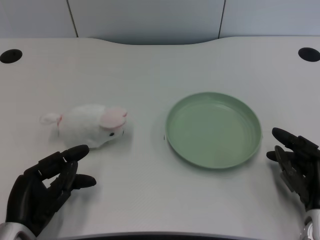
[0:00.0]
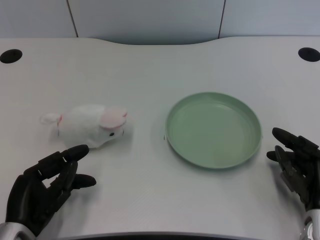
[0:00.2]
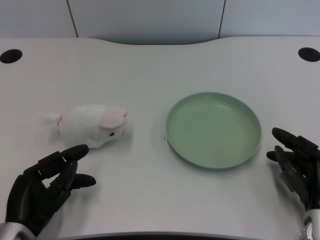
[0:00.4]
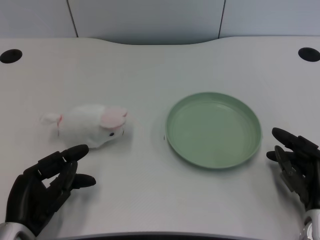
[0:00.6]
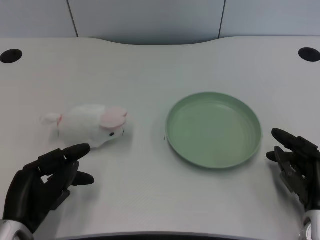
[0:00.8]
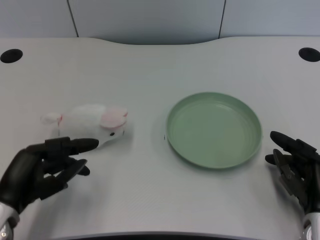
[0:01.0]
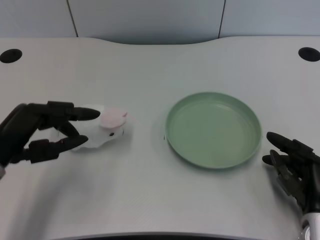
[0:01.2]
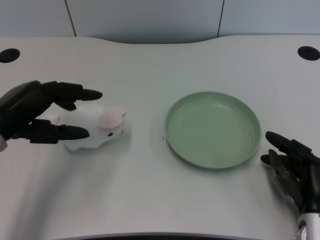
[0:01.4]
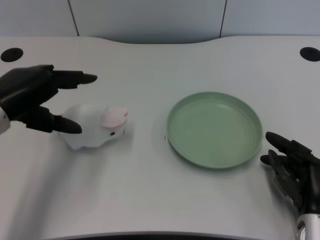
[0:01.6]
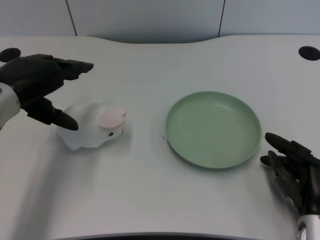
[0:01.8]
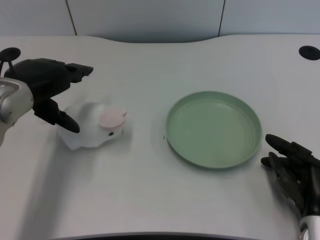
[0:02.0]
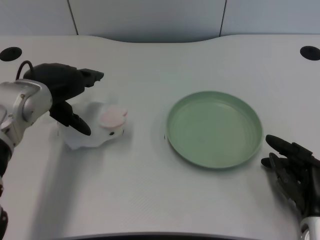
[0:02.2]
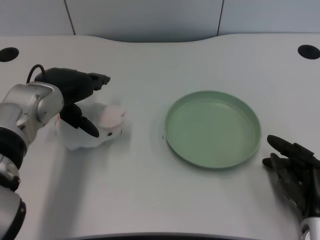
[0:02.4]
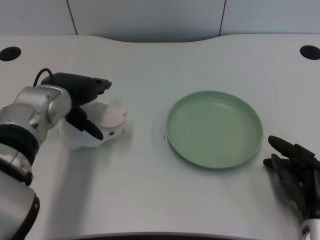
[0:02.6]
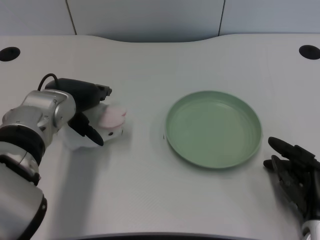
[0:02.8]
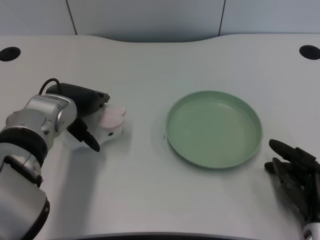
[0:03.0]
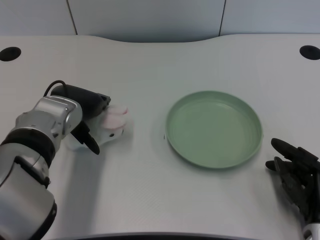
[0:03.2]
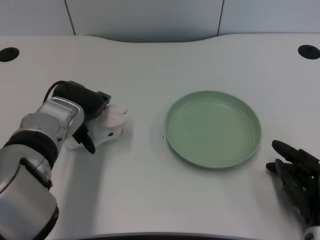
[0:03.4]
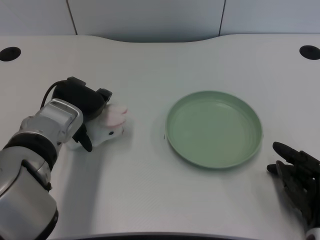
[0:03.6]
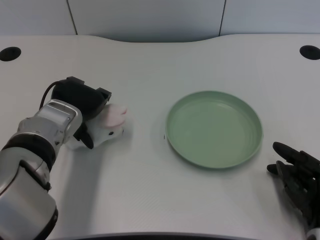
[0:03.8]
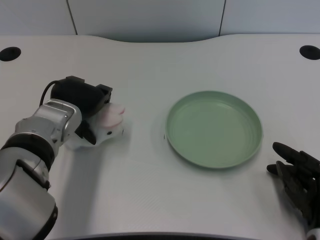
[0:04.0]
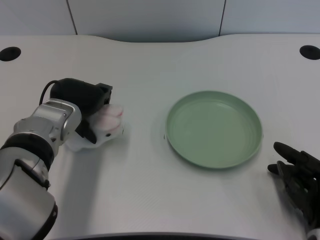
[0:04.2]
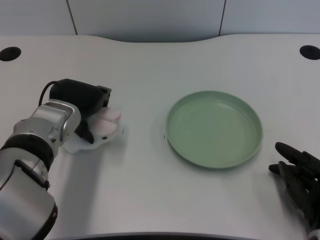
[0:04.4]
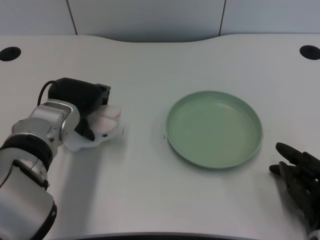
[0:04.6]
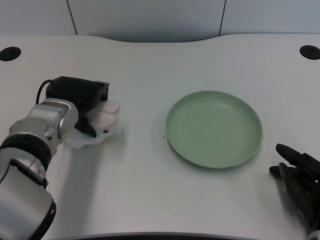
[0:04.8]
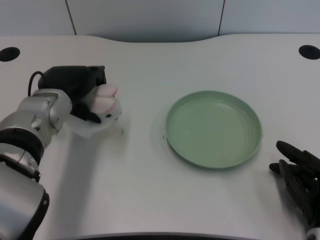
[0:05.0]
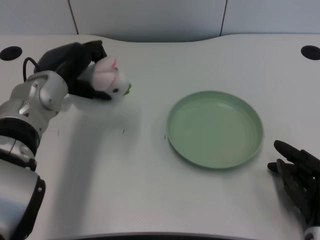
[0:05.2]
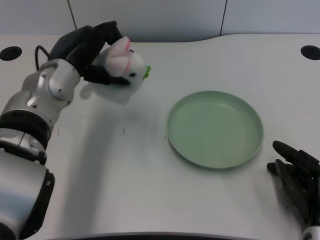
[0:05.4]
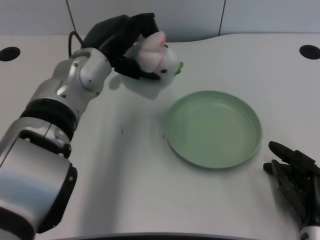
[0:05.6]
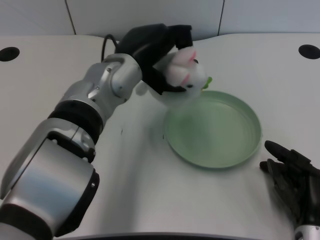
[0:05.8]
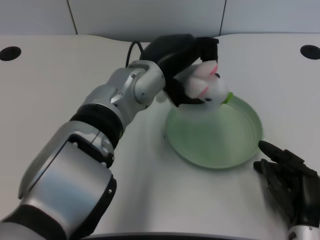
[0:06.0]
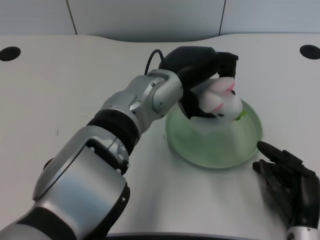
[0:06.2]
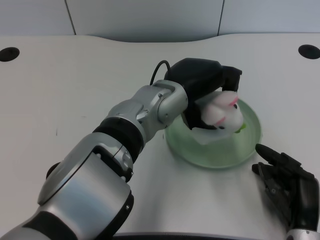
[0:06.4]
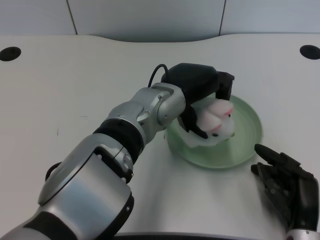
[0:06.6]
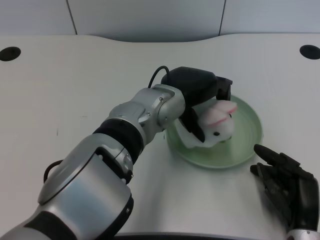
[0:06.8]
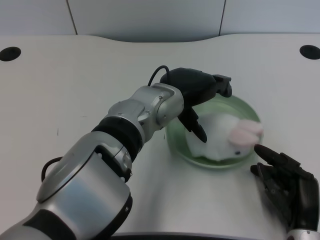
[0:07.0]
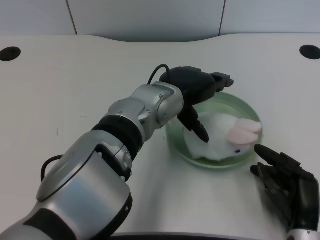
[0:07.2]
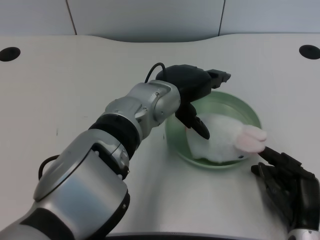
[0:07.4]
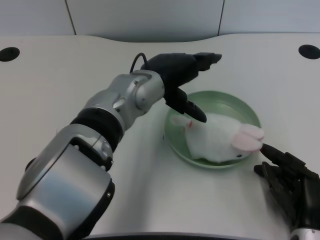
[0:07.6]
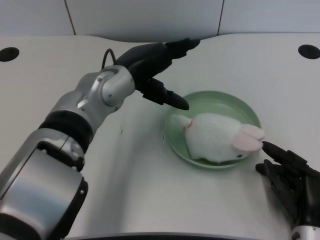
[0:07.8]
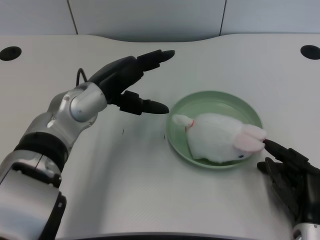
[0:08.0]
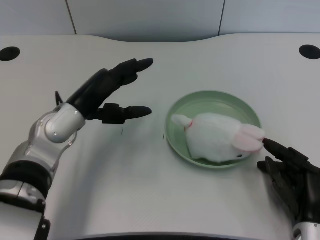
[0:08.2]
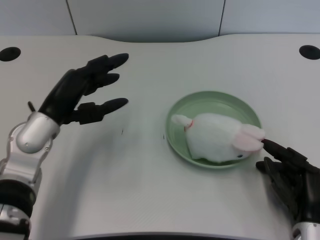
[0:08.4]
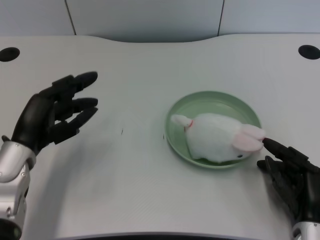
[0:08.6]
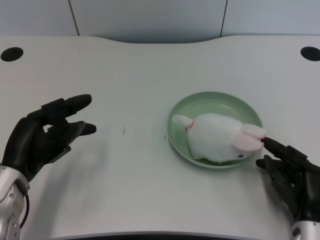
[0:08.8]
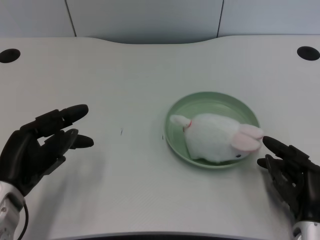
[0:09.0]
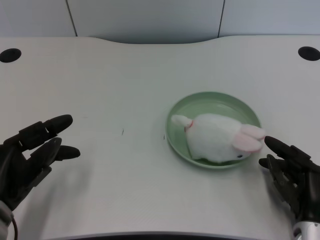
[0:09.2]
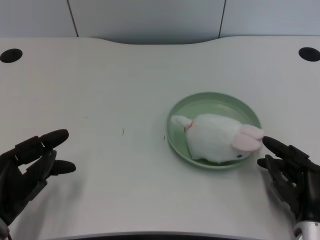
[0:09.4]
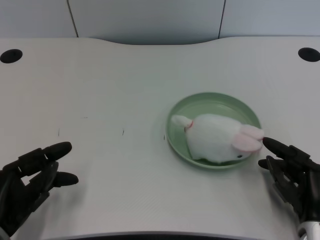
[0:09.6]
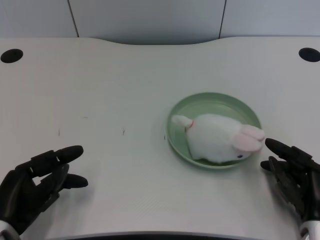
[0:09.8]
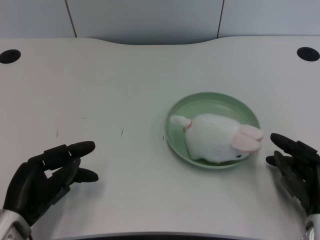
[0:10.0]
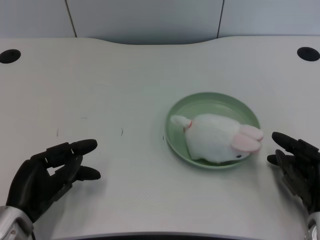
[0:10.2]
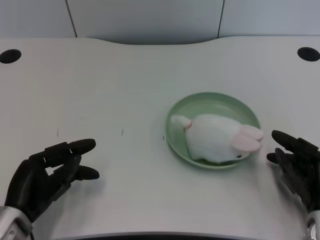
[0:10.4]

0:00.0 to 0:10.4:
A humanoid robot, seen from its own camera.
Task of the whole recording: pick up the rabbit doll from the table and place it on the plate.
Step, 0:01.0 to 0:04.8: Grasp the rabbit doll with the left gripper.
Step, 0:05.0 to 0:07.2: Place the rabbit doll into the plate with the left gripper.
0:01.4 to 0:03.0: The left hand is displaced to the right and forward by roughly 10 cm.
0:03.0 to 0:04.4: The hands move only a little.
0:04.4 to 0:06.0: The left hand shifts about 15 cm to the right and upward.
0:07.4 to 0:09.0: The left hand moves to the left and backward, some 25 cm.
0:09.0 to 0:10.4: There are only small adjustments of the hands.

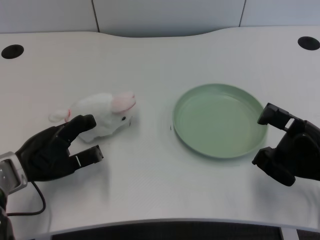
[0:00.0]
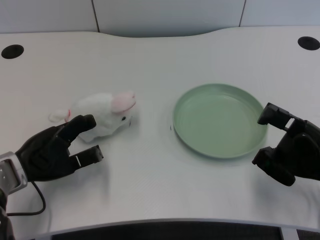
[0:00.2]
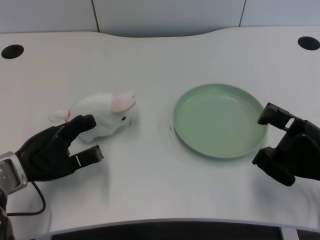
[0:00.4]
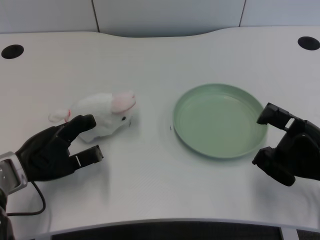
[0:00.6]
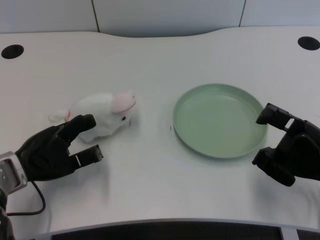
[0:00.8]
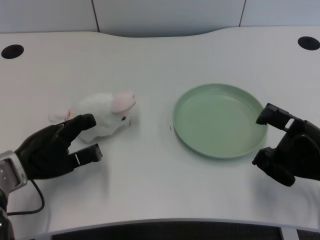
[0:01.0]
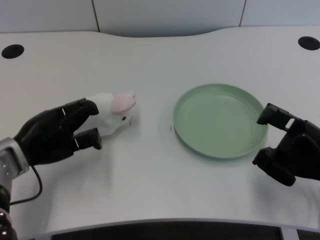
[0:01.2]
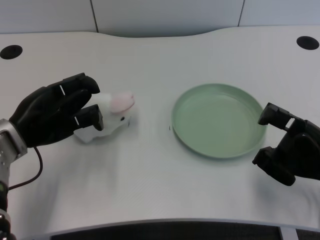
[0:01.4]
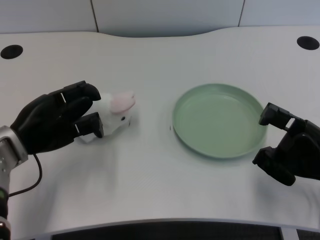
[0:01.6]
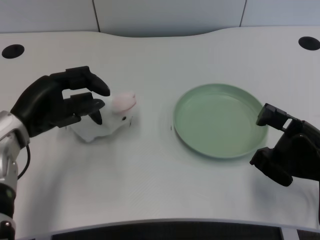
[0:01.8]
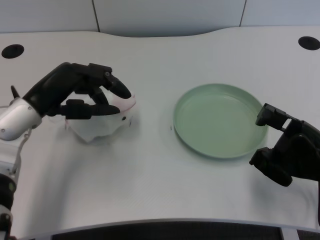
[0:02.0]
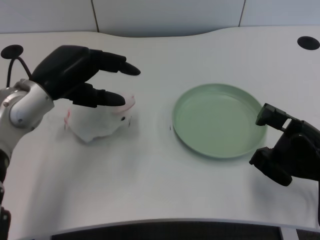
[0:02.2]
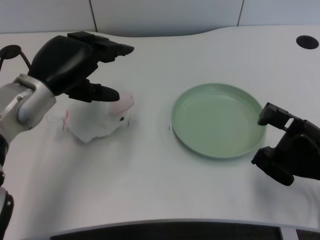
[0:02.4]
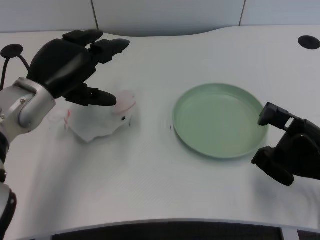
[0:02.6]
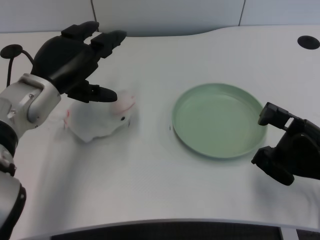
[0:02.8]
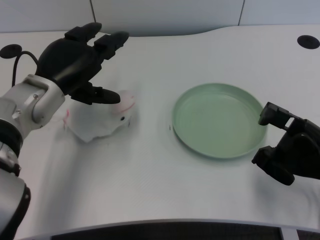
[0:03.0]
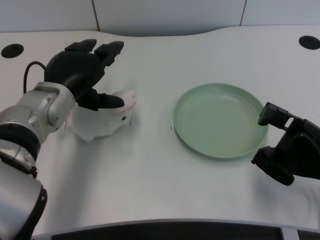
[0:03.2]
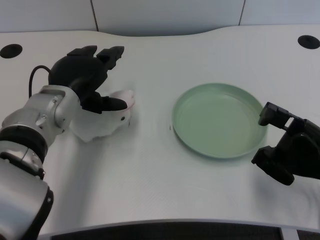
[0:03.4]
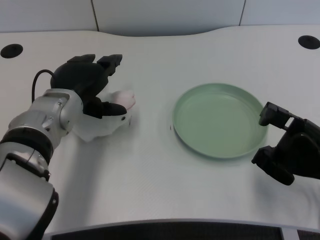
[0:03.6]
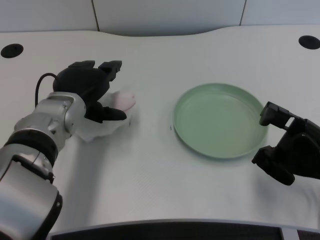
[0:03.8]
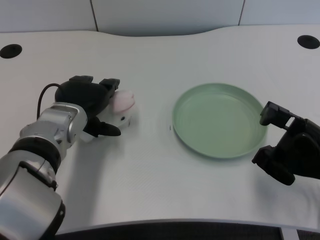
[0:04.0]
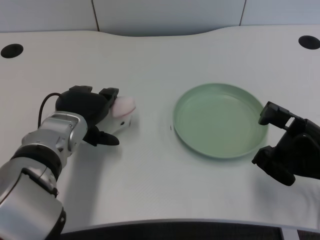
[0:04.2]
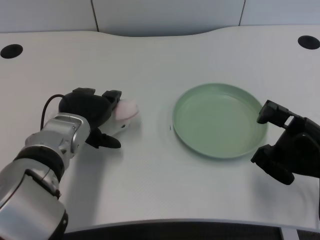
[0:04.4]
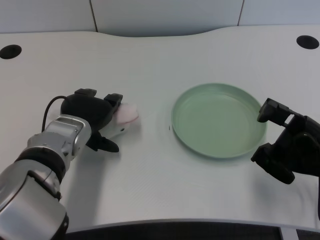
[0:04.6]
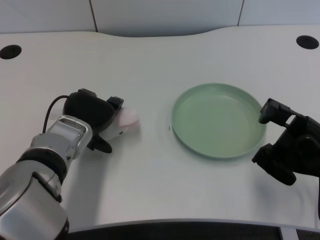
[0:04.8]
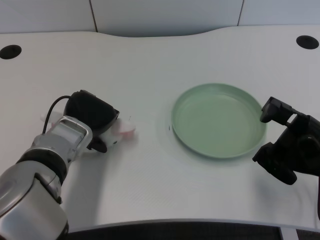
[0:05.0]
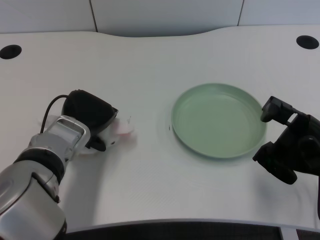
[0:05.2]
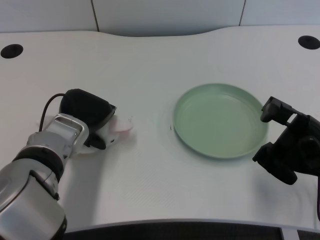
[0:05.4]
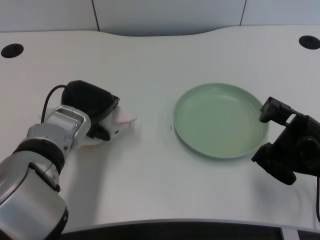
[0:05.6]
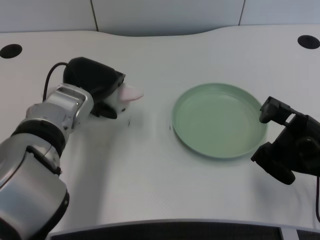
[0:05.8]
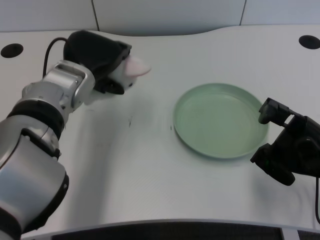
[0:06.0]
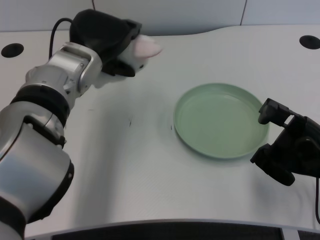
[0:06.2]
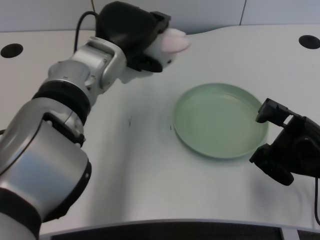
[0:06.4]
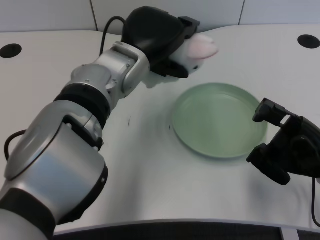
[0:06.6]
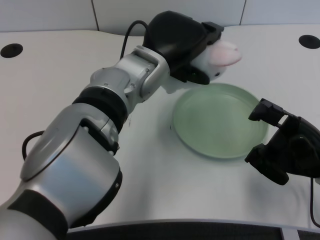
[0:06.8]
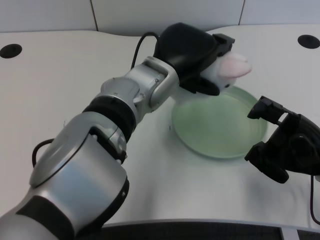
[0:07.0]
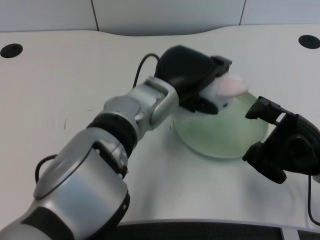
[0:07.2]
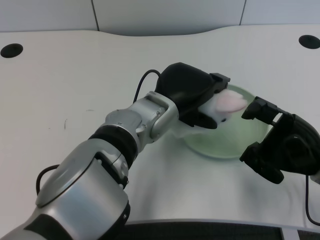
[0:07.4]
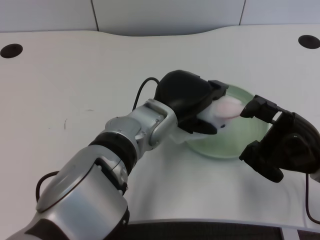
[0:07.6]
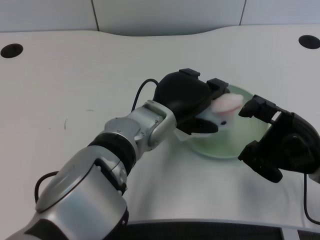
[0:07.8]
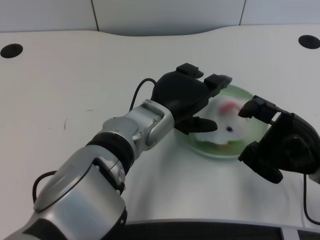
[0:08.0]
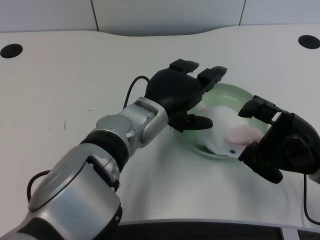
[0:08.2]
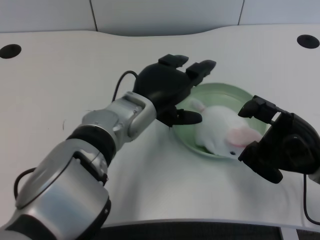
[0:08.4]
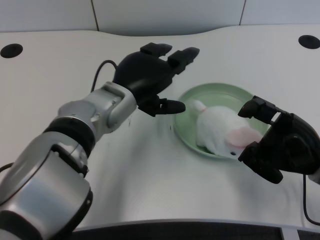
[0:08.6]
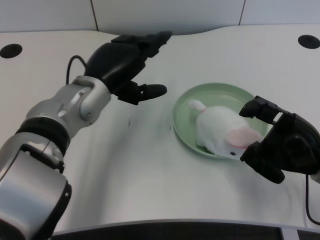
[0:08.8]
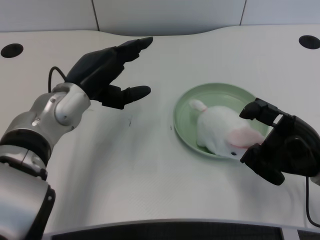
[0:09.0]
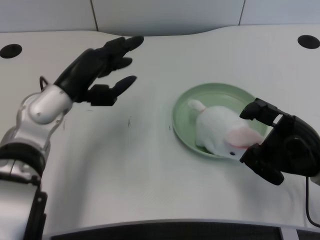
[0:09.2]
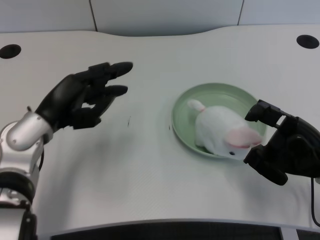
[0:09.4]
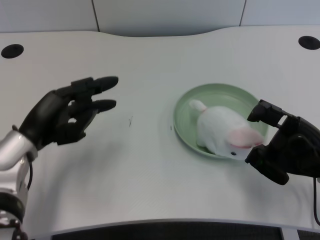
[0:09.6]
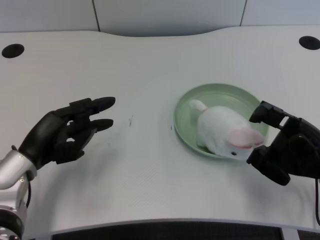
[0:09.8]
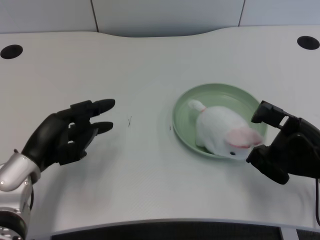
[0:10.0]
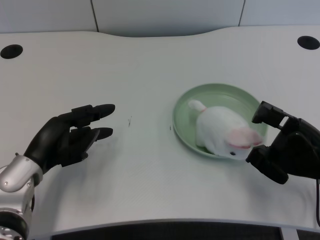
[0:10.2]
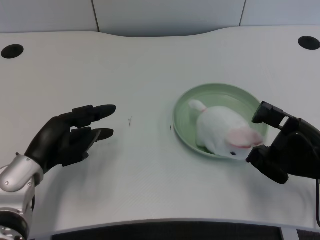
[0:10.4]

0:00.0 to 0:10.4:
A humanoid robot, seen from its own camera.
Task of the whole recording: pick up the rabbit doll from the table and place it on the plate.
Step, 0:01.0 to 0:05.6: Grasp the rabbit doll with the left gripper.
Step, 0:05.8 to 0:08.2: Place the rabbit doll into the plate with the left gripper.
0:01.4 to 0:03.0: The left hand moves to the right, some 5 cm.
0:03.0 to 0:04.4: The left hand goes about 5 cm downward.
0:04.4 to 0:06.0: The left hand moves upward, approximately 5 cm.
0:06.0 to 0:07.4: The left hand shifts some 10 cm to the right.
0:07.4 to 0:09.0: The left hand travels to the left by about 10 cm.
0:09.0 to 0:10.4: The left hand is displaced downward, to the left and backward by about 15 cm.
